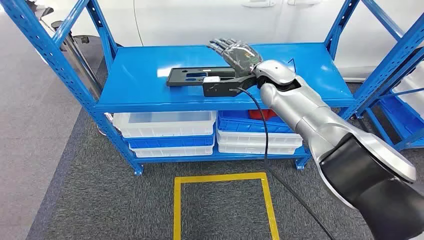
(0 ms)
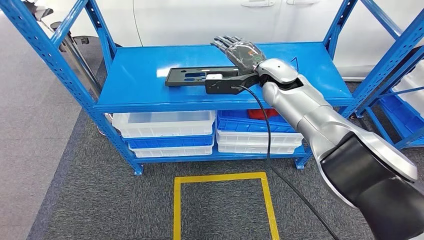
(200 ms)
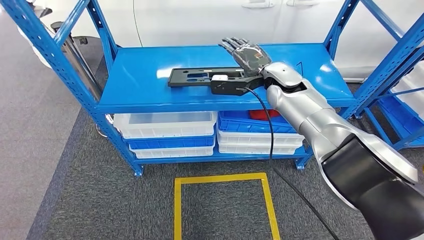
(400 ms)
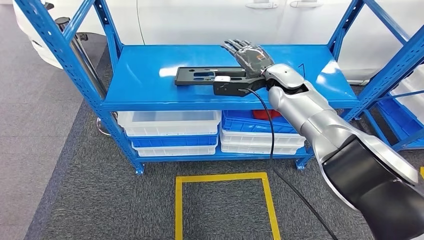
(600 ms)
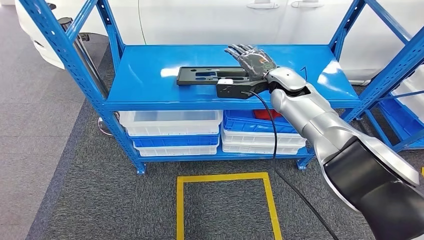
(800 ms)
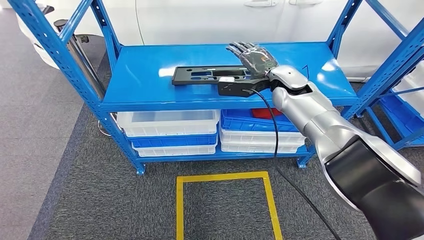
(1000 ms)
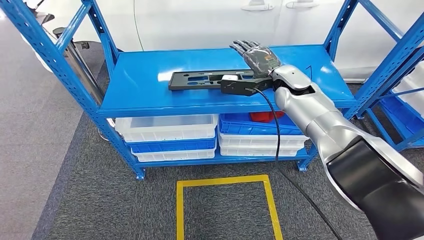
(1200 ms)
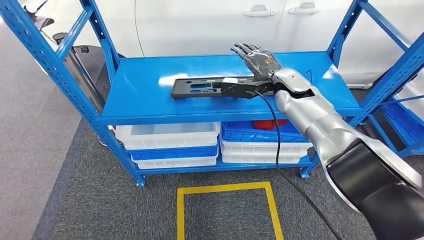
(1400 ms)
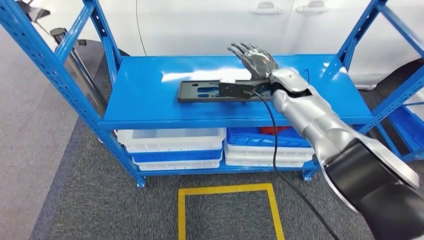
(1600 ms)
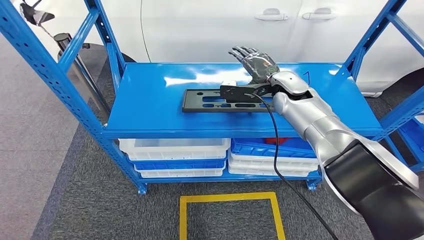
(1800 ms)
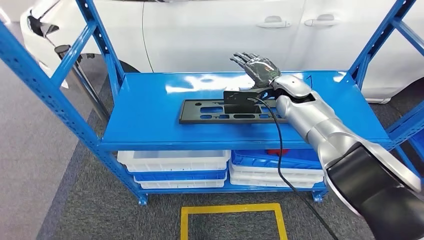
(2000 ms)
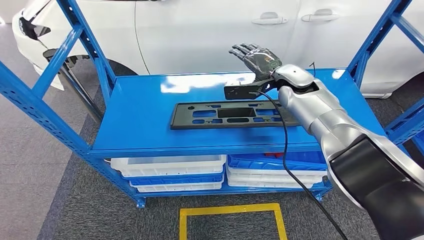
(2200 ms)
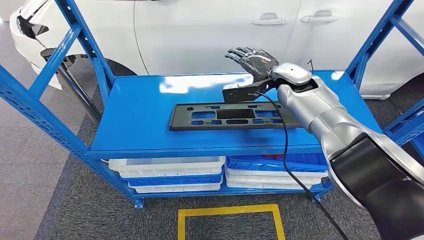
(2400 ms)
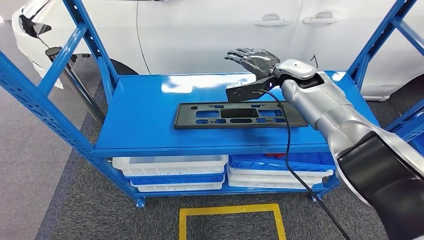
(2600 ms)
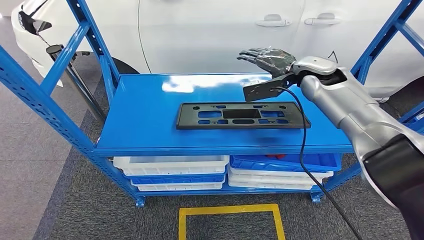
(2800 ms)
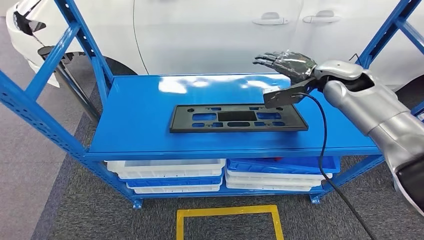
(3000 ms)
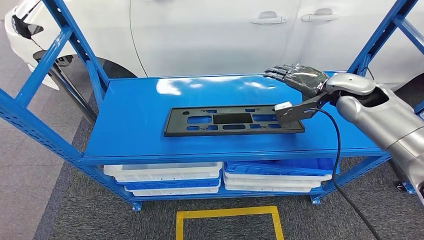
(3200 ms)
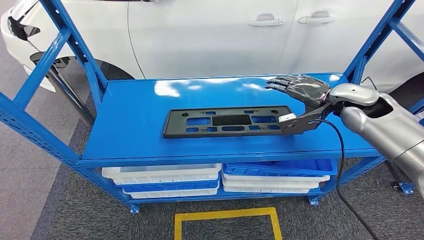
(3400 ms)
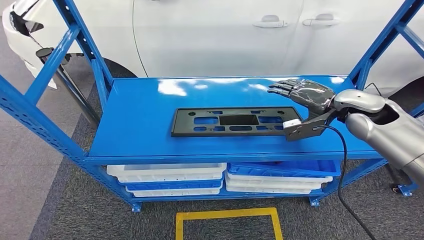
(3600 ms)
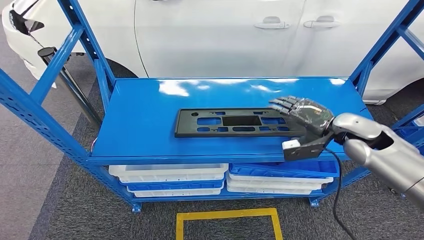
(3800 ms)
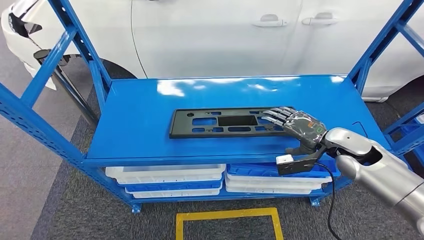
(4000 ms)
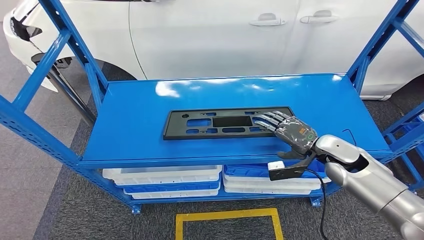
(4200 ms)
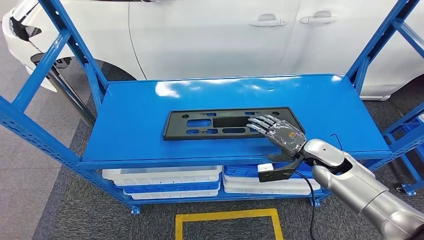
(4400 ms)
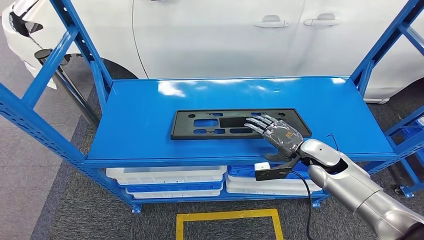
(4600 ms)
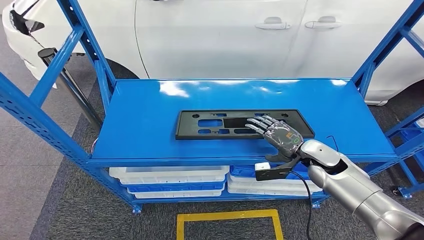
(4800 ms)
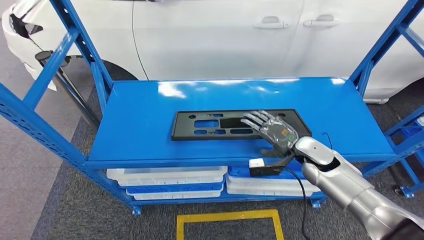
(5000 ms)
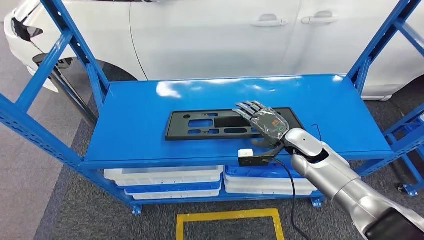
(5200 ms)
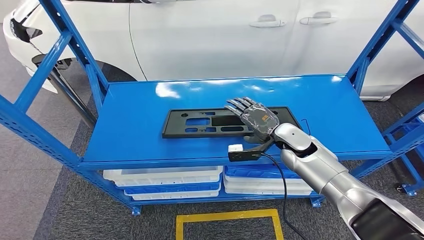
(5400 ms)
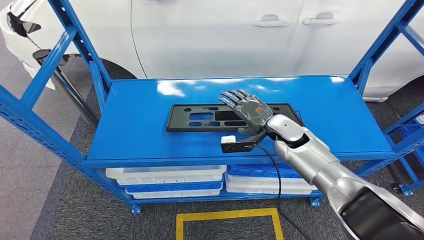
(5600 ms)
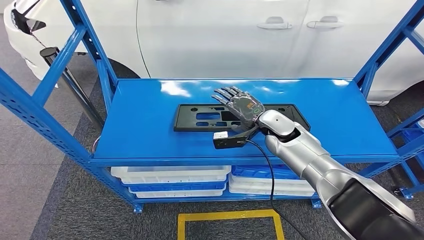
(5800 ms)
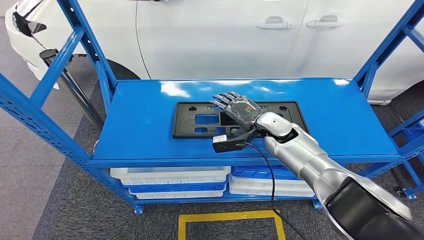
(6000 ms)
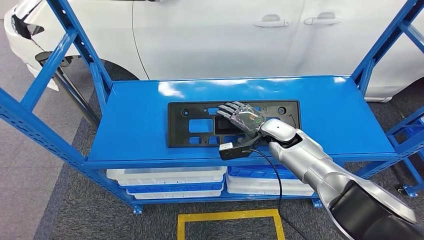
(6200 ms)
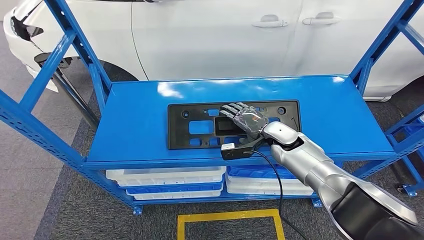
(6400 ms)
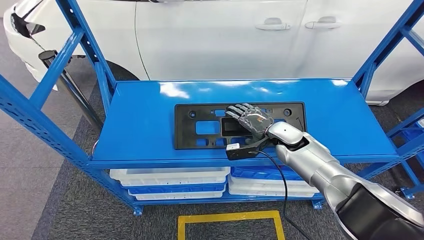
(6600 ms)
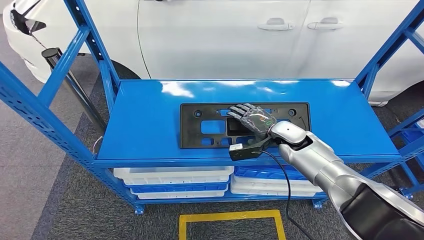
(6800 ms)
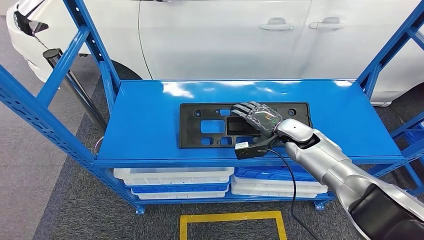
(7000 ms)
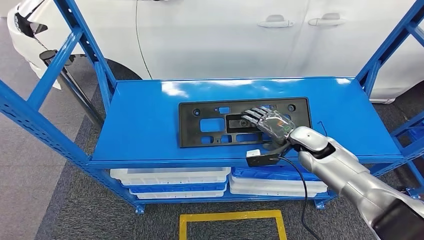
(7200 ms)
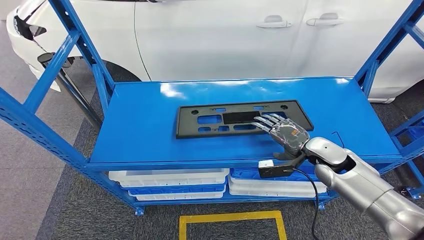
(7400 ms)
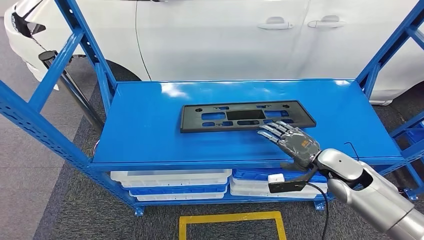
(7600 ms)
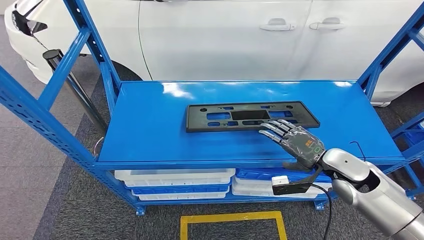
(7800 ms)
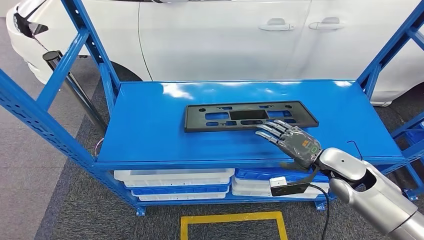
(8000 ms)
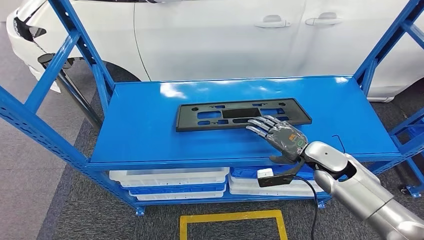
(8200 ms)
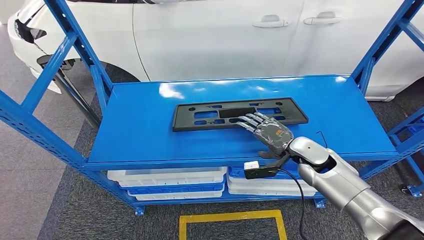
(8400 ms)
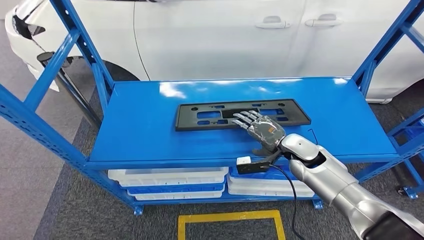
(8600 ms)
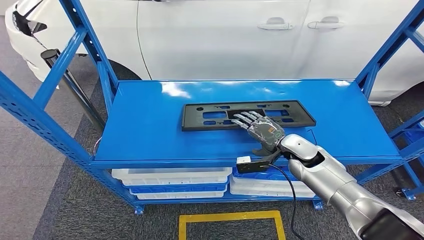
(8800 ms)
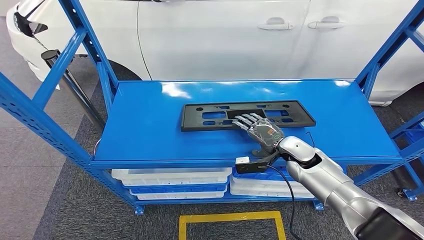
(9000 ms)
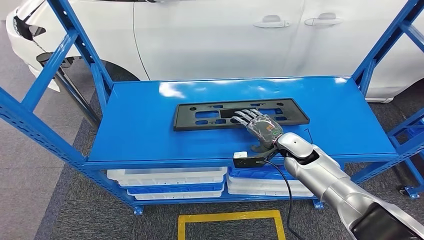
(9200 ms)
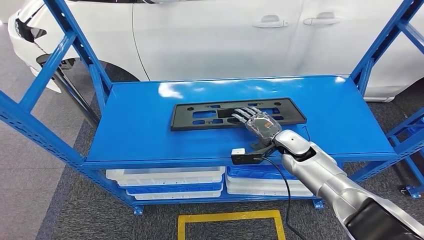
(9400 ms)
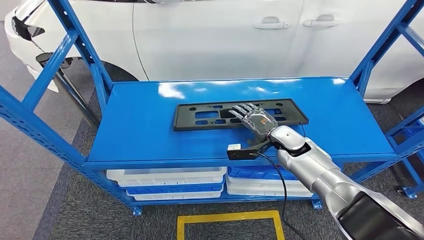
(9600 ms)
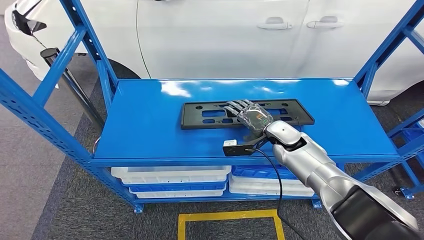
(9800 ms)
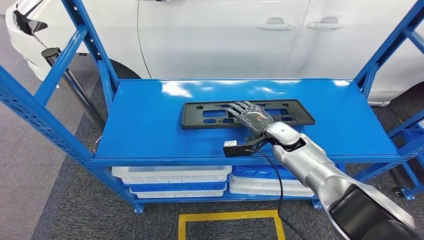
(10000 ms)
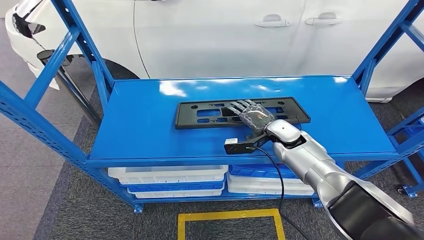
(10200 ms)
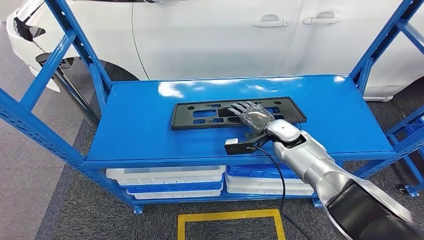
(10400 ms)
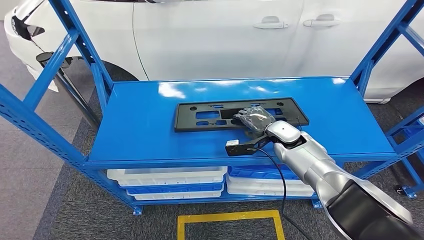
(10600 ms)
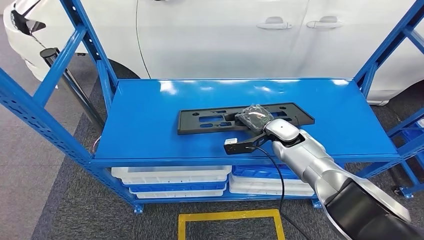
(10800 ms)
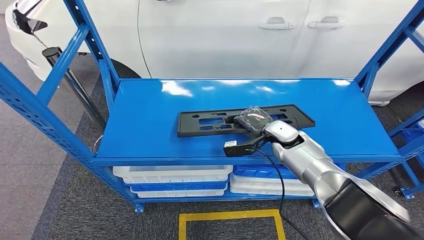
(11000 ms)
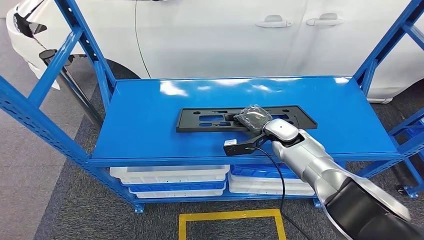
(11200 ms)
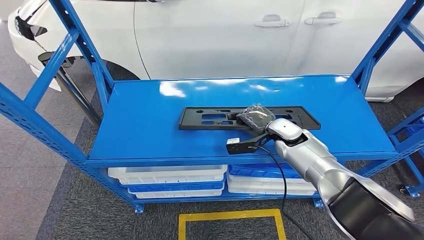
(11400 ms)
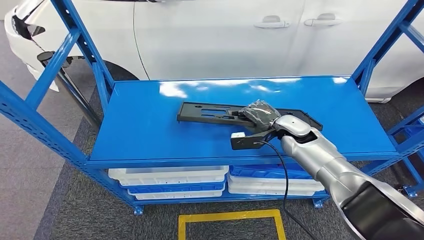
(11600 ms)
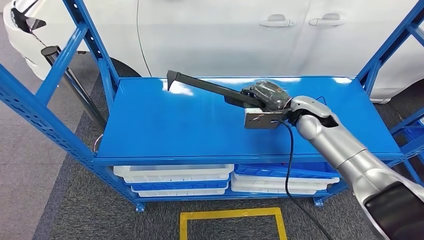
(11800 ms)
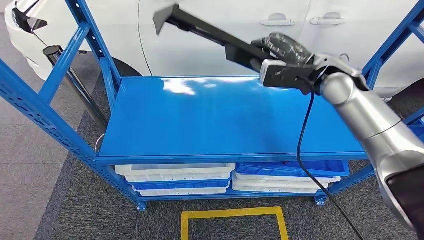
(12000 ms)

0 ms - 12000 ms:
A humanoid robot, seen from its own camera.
Step, 0 ms - 12000 ms: Pick up the large material from the shelf.
7600 ms - 9000 ms: The right hand travels forward and to the left by about 10 cm.

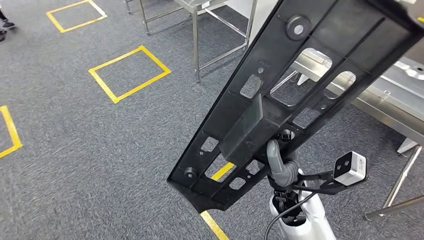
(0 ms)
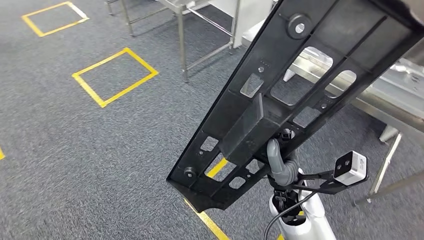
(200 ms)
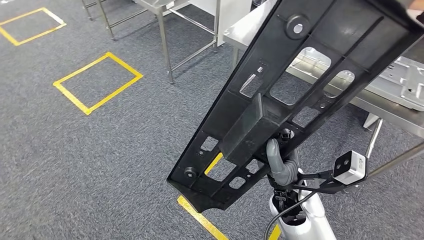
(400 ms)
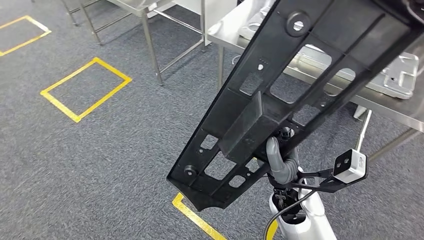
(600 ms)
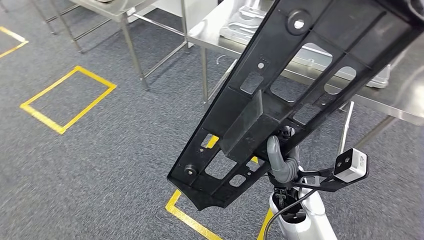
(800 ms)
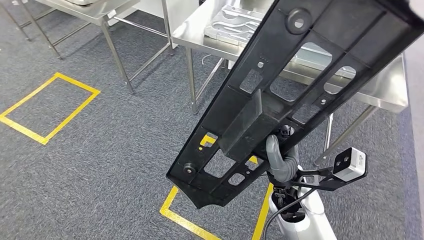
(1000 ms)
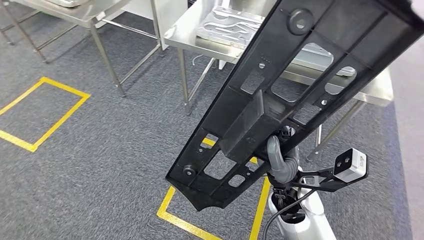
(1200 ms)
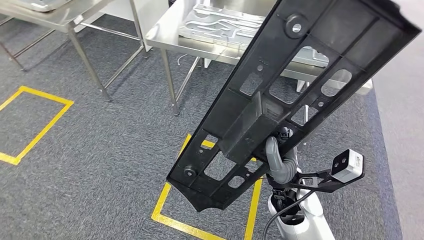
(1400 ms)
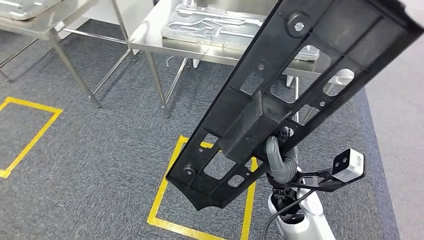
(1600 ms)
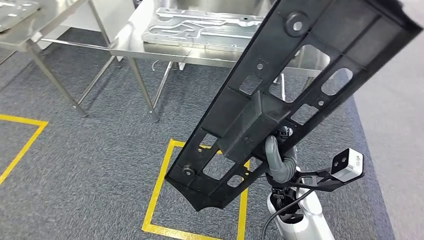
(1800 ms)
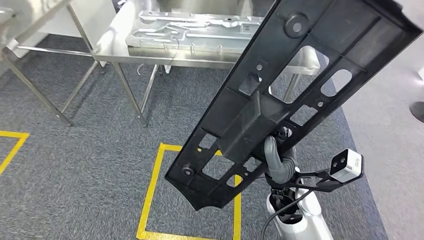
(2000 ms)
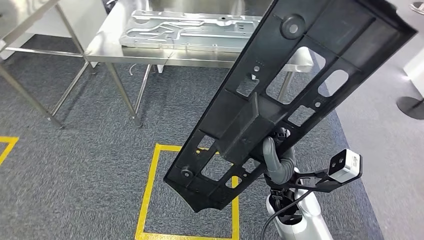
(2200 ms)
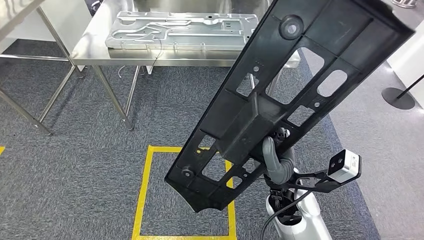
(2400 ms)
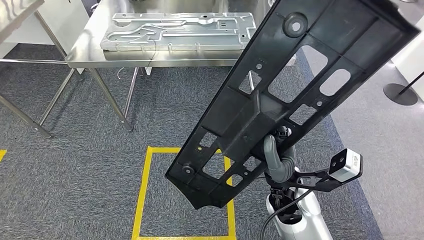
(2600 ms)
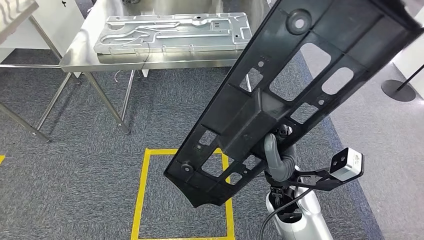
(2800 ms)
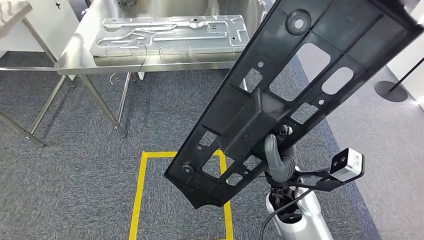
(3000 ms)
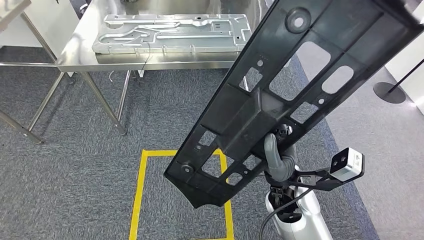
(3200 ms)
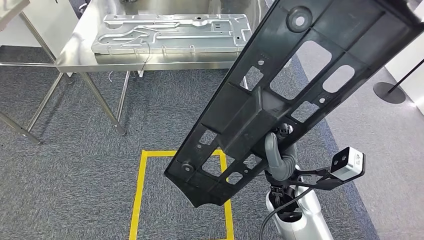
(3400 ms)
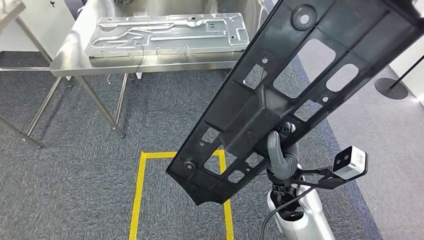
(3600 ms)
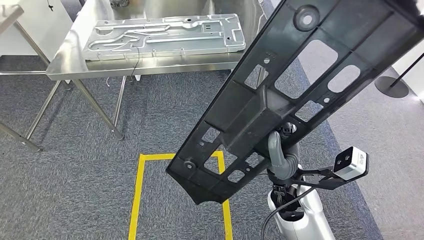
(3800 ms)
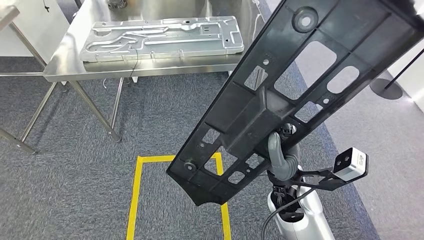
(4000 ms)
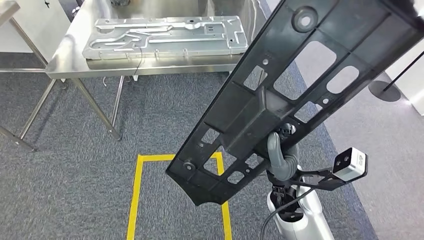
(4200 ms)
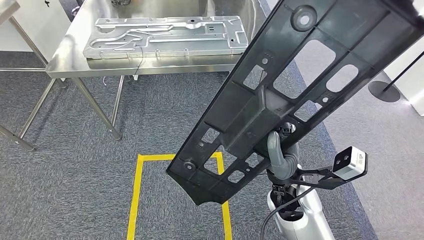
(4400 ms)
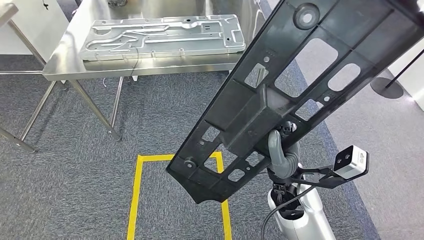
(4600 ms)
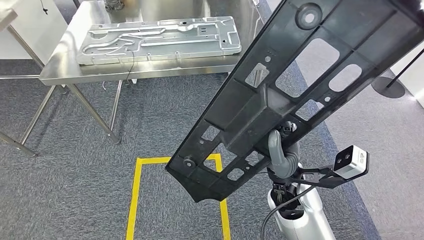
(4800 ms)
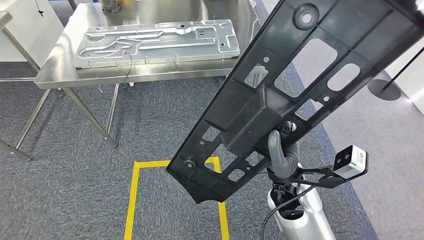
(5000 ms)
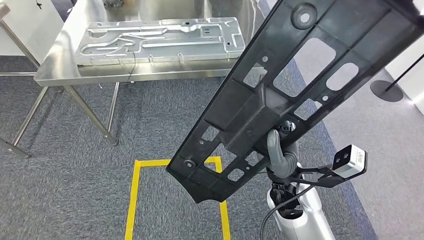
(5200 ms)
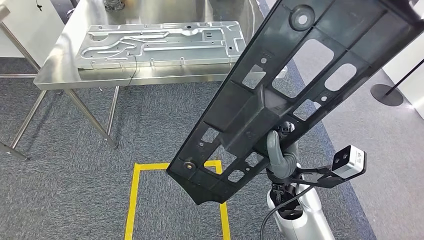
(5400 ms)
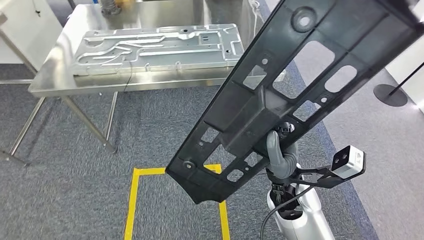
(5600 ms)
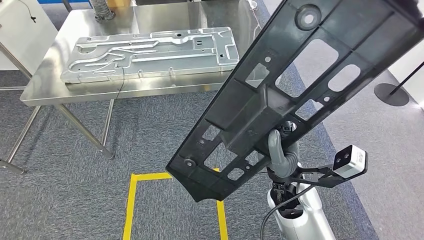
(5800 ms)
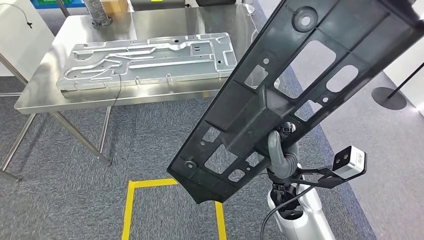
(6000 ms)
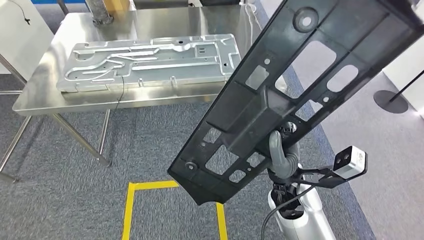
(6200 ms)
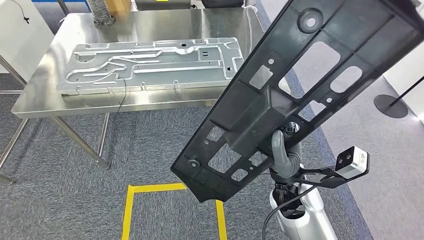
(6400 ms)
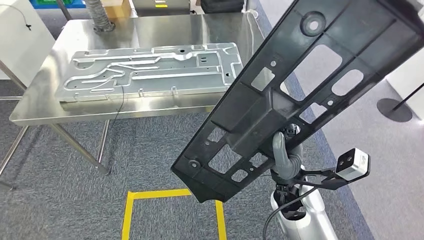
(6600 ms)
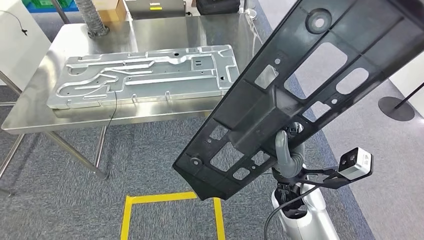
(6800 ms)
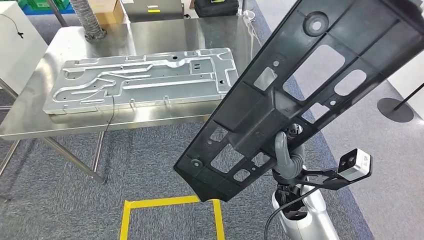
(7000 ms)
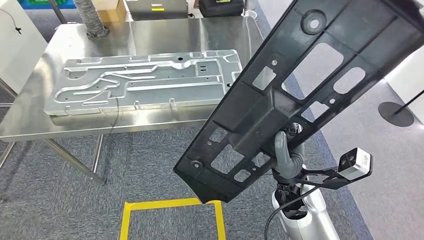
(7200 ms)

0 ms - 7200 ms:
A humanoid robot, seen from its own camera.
Step, 0 ms - 7200 ms: Move the large material to the workbench.
